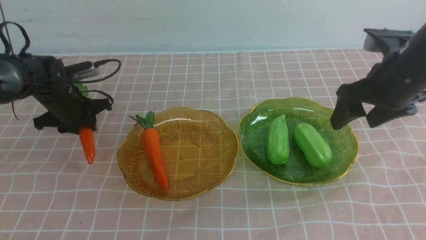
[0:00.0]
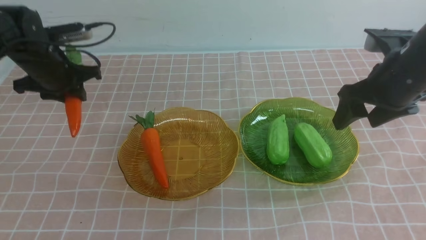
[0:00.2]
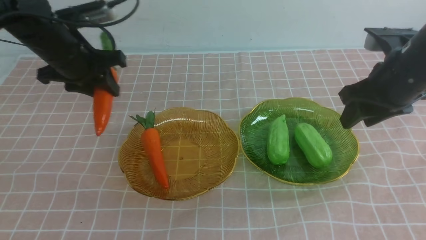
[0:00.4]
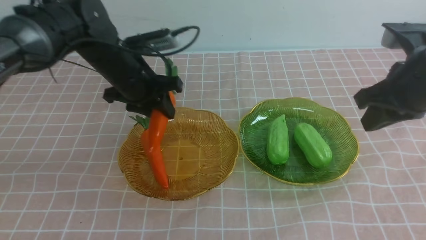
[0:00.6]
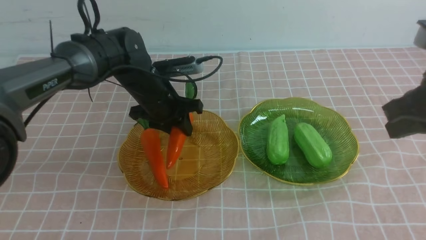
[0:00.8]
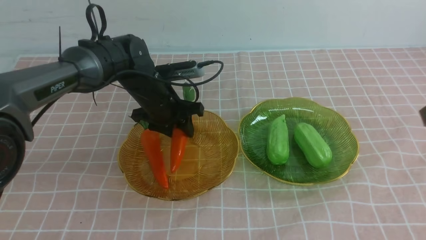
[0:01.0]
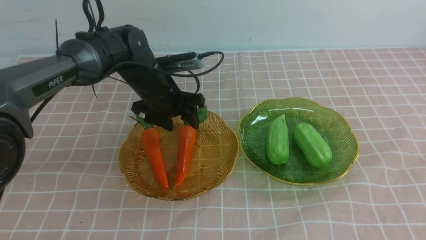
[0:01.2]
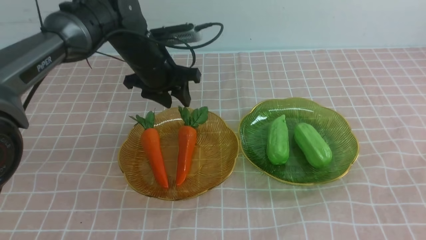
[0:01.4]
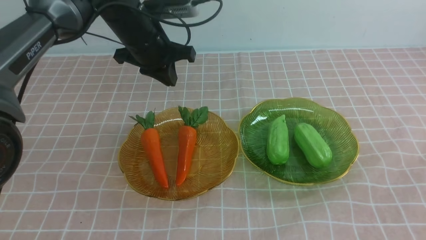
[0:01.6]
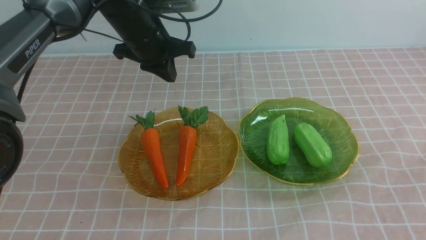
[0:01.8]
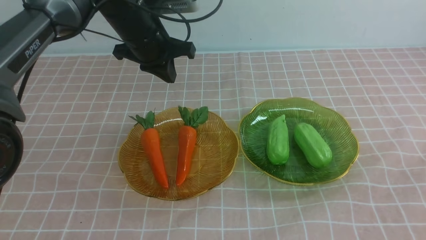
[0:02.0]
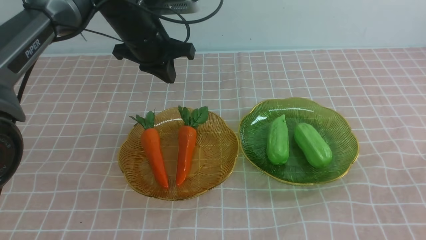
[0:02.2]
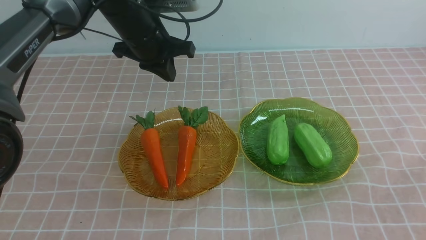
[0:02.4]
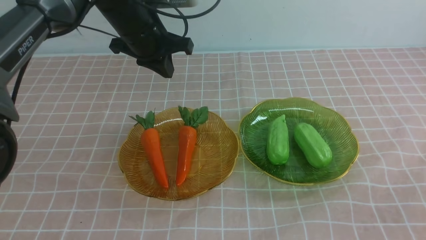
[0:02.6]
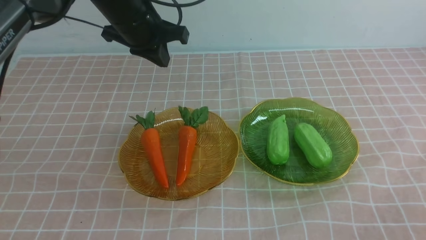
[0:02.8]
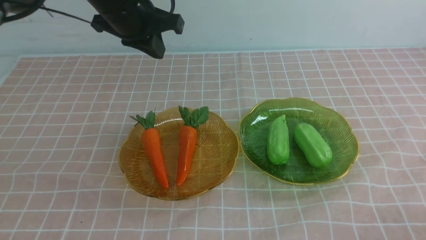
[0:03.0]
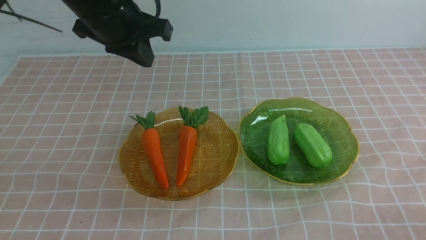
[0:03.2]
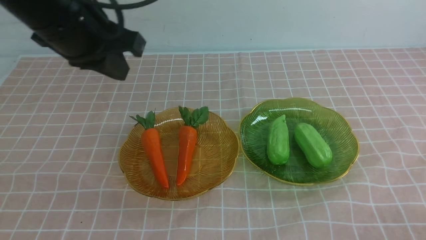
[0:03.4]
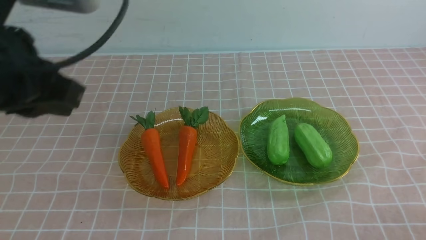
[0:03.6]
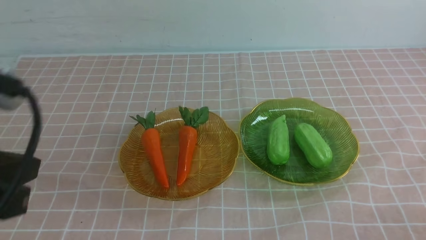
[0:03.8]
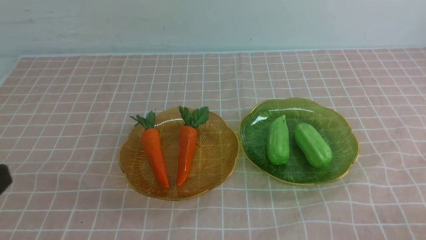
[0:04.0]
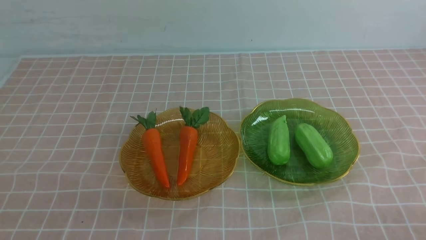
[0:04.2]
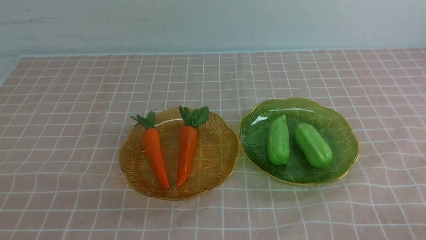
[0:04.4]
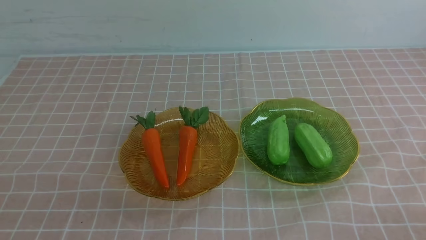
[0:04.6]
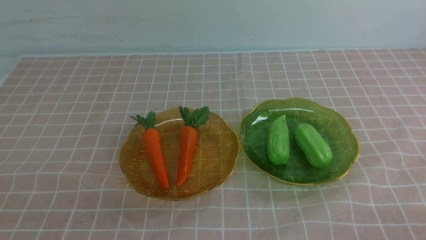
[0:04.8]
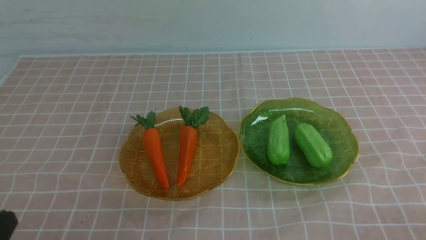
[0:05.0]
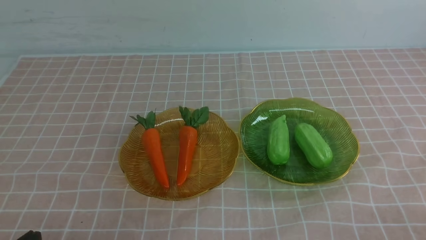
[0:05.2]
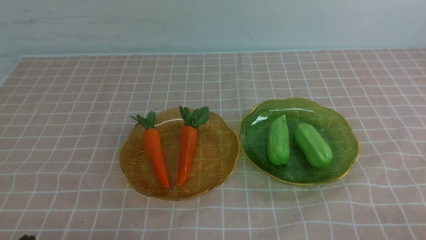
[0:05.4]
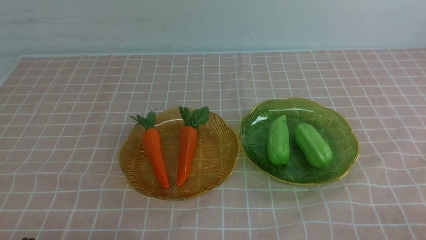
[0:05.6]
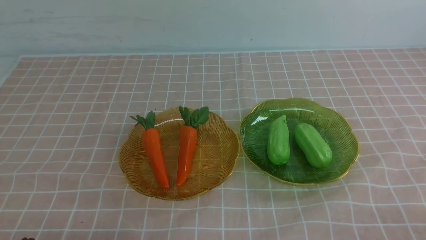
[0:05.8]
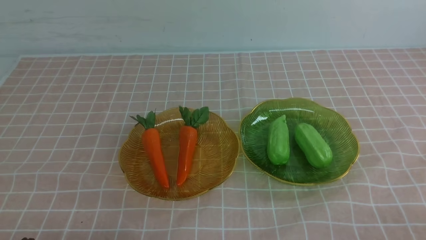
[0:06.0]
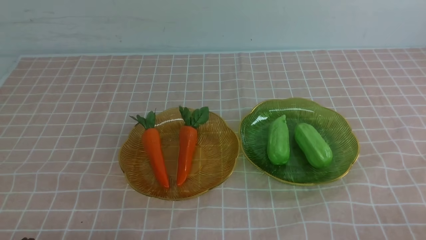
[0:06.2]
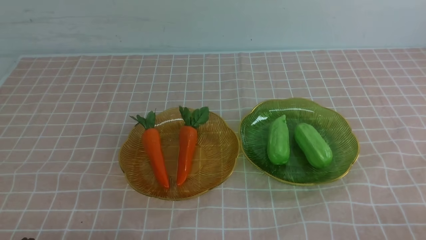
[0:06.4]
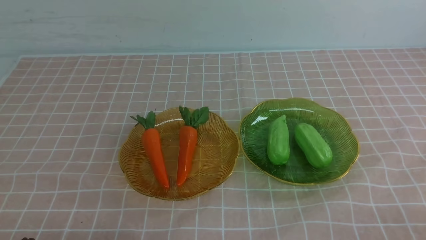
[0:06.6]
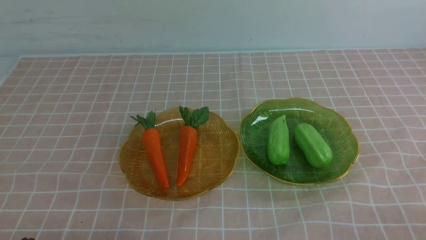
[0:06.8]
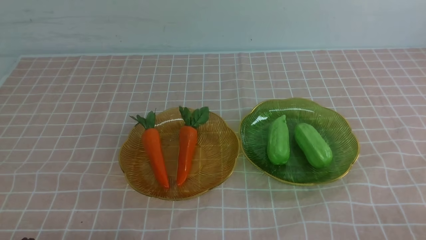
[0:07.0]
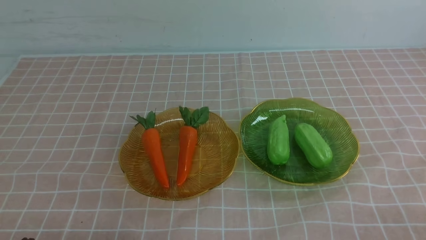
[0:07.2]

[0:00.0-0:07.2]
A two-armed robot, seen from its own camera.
0:00.0 to 0:01.4: The right gripper travels backward by approximately 20 cm; the left gripper is displaced upward by approximately 5 cm, and closes.
0:01.4 to 0:02.8: The right gripper moves downward, approximately 10 cm; the left gripper shifts some 15 cm backward and upward.
0:02.8 to 0:04.4: The left gripper shifts approximately 30 cm backward.
0:05.8 to 0:07.2: Both grippers stay put.

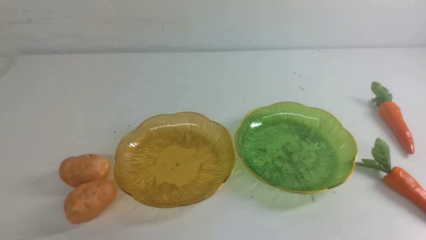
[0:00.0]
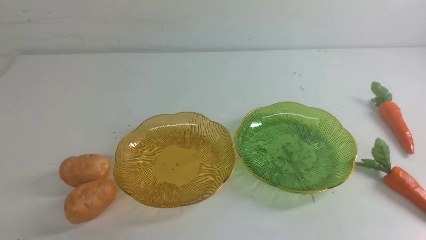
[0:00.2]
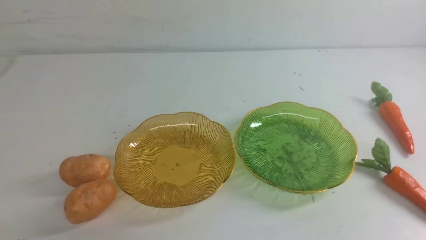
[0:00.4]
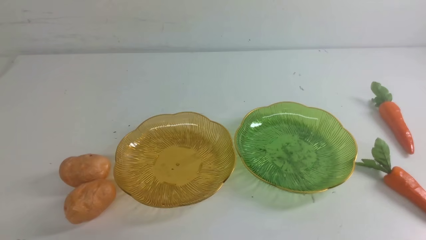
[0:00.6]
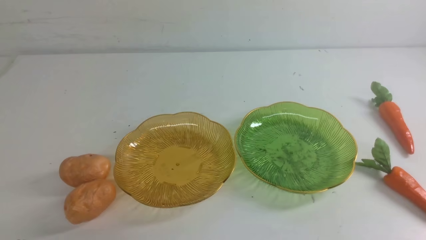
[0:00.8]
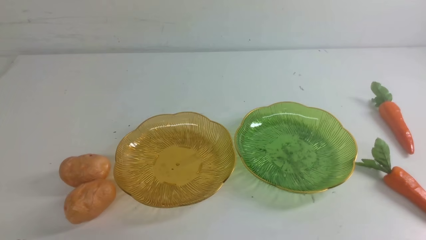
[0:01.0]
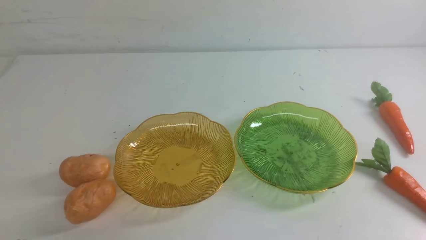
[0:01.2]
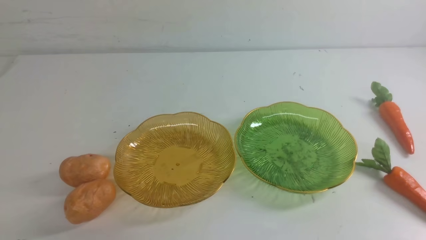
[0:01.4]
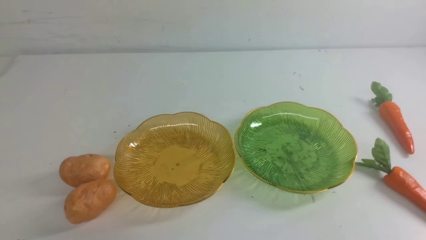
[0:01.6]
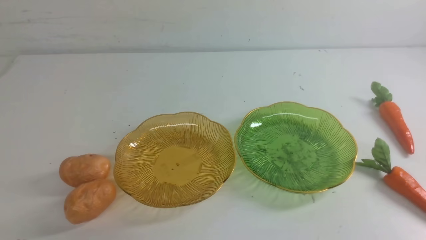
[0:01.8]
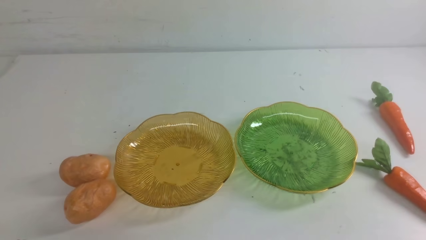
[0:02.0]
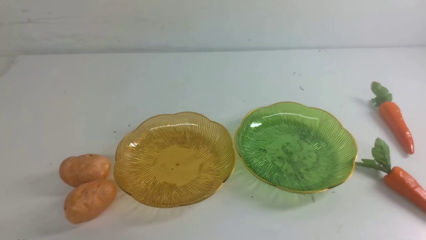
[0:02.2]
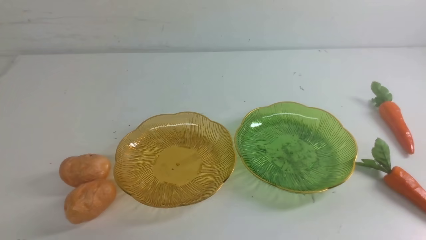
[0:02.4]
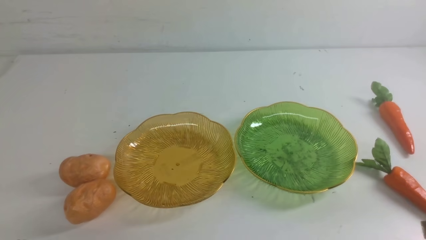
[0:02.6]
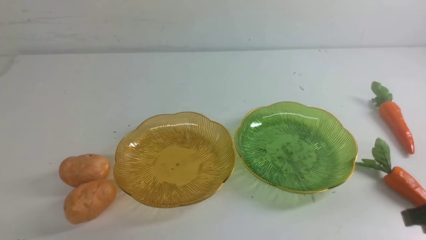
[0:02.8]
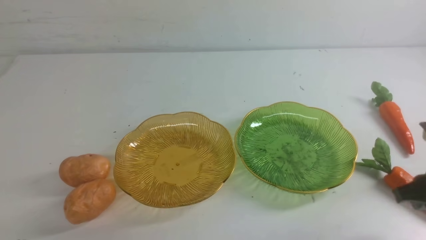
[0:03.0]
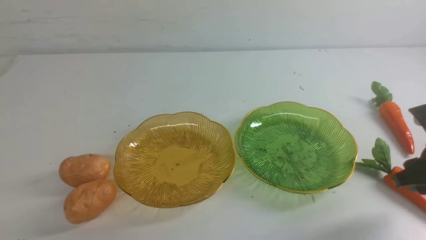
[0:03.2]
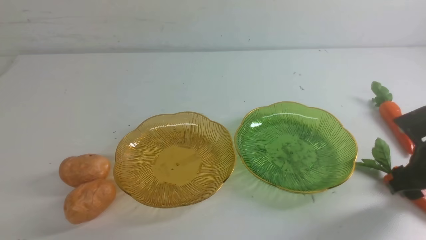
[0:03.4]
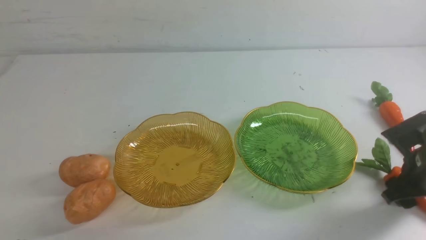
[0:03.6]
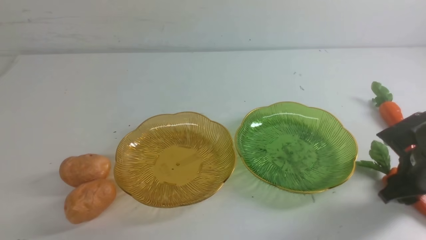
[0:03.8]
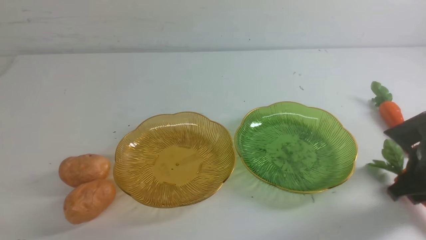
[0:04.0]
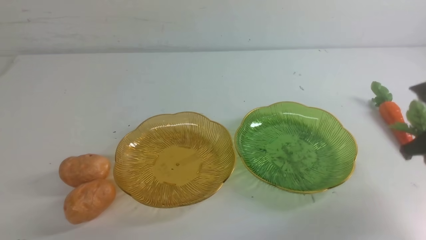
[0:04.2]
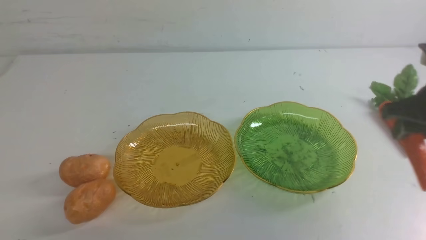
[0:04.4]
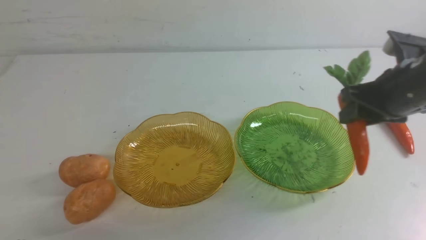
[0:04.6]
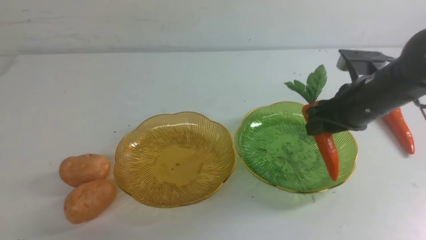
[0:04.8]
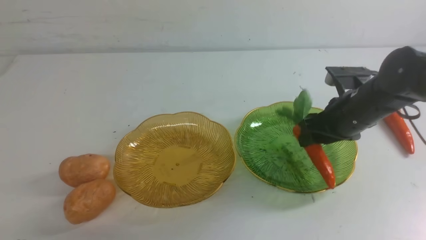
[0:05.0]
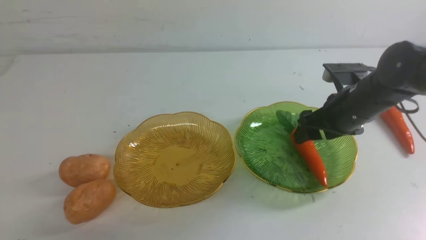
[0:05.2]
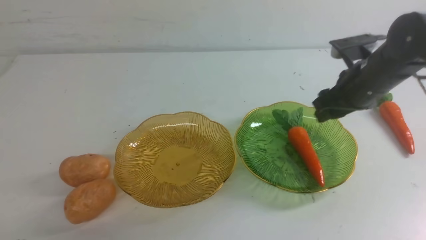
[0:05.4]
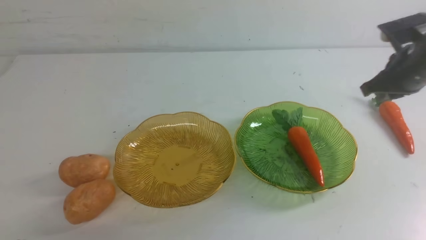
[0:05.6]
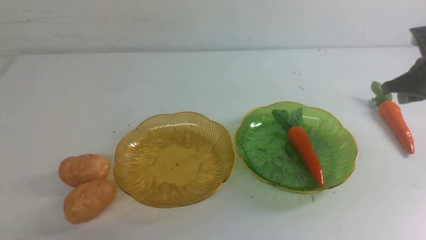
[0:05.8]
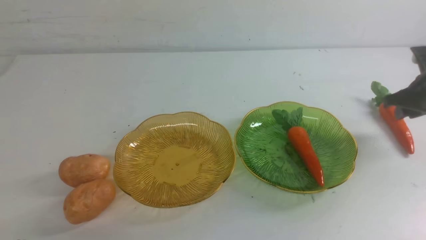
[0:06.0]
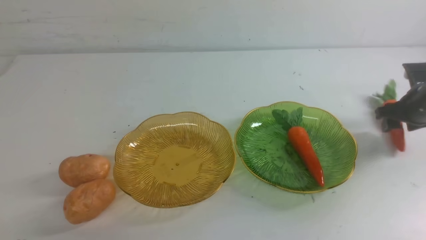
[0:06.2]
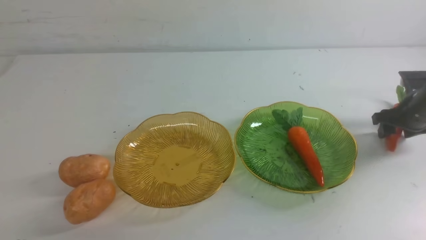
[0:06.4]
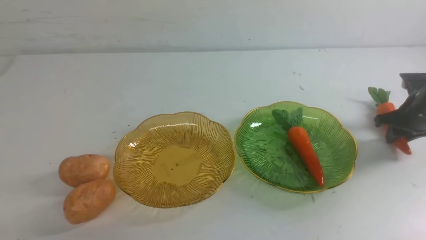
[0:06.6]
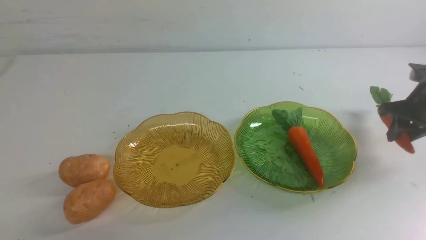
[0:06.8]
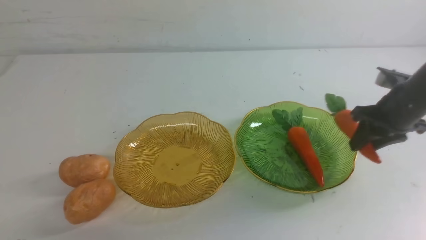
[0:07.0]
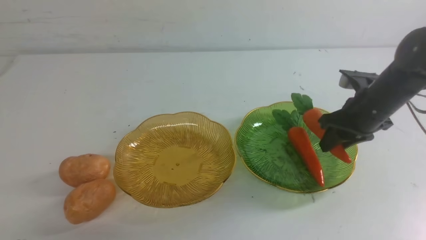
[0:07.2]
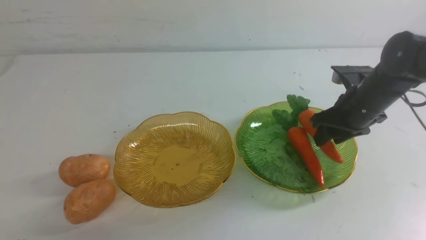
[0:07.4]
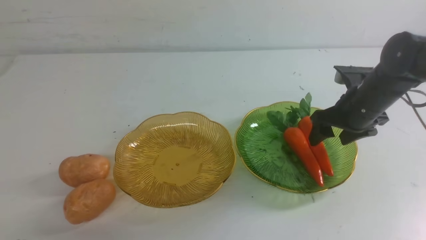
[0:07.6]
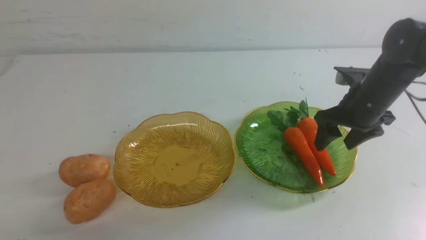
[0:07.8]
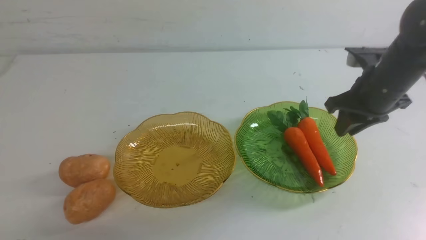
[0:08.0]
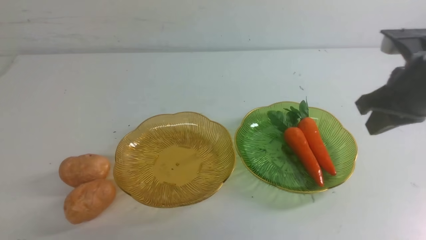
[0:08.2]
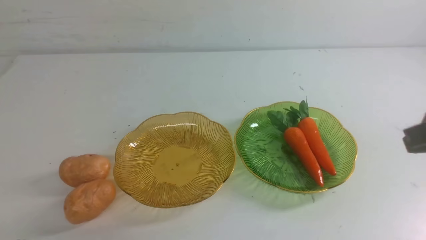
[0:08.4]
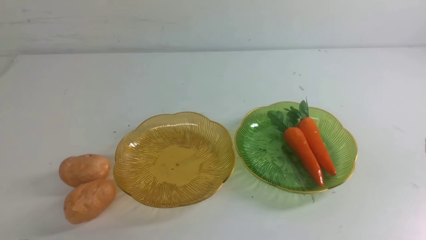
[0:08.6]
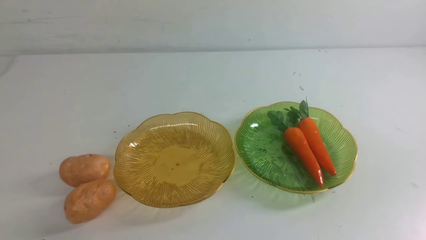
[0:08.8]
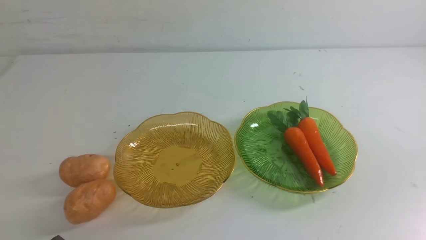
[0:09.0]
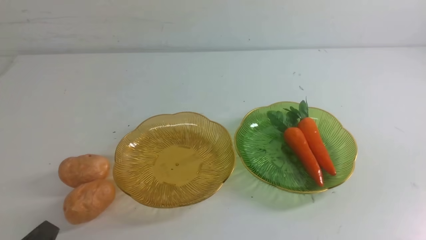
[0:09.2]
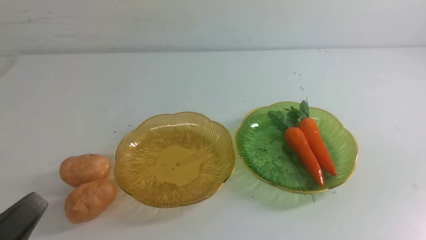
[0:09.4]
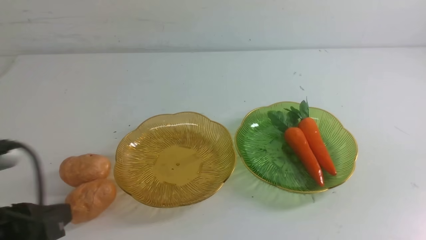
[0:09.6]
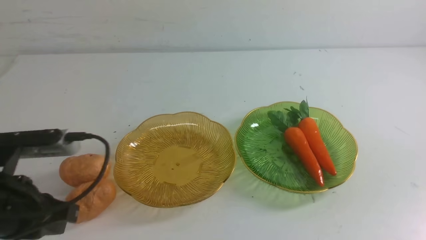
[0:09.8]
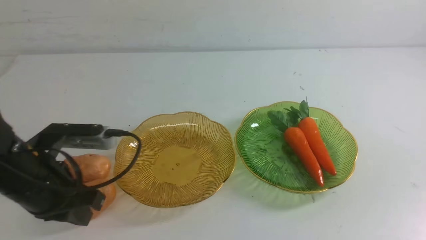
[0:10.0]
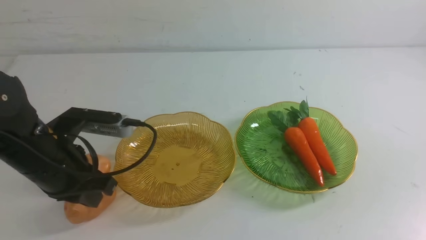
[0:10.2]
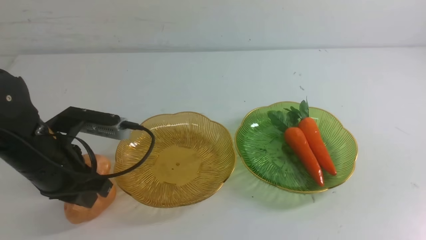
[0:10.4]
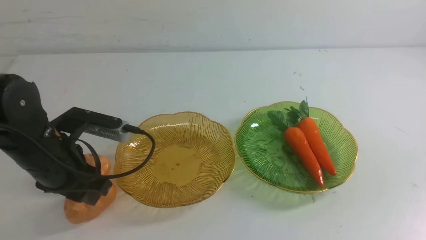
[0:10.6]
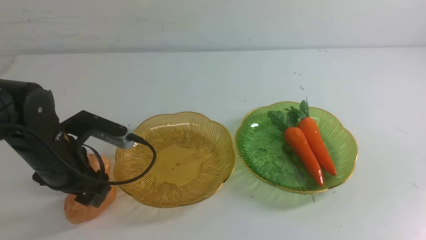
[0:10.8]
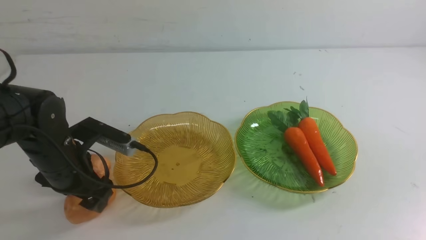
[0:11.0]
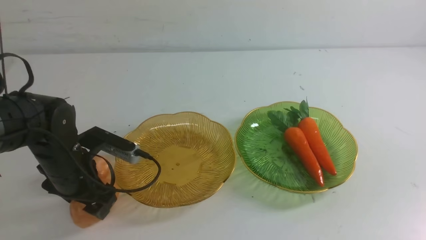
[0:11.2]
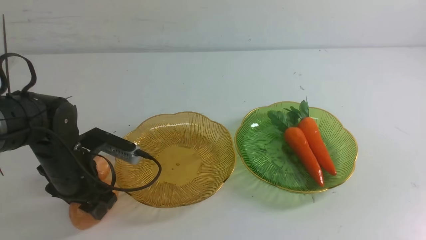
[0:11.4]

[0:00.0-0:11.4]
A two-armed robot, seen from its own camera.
Step, 0:00.0 to 0:07.6: use the right arm to grab a carrot and put it into the right plate.
0:00.0 to 0:01.4: The two grippers keep their place.
0:01.4 to 0:02.8: The right gripper moves forward, roughly 15 cm, and opens.
0:02.8 to 0:04.2: The right gripper shifts approximately 10 cm forward, and reaches some 5 cm downward, then returns.
0:04.2 to 0:05.6: The right gripper shifts approximately 15 cm forward, to the right and downward.
0:05.6 to 0:07.2: The right gripper travels to the left by about 15 cm, and opens its fingers.
0:07.2 to 0:08.6: The right gripper is displaced backward by about 30 cm, and closes up.
0:08.6 to 0:10.0: The left gripper shifts about 20 cm forward, and opens its fingers.
